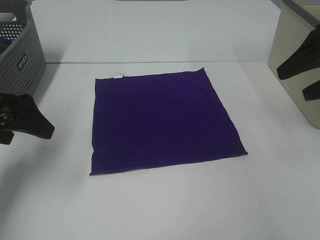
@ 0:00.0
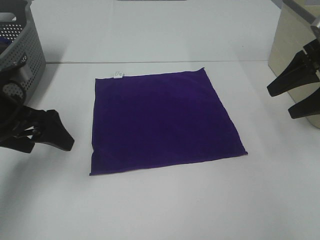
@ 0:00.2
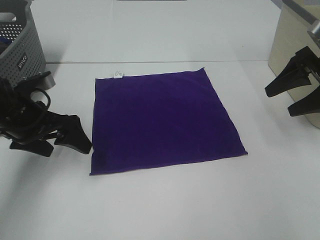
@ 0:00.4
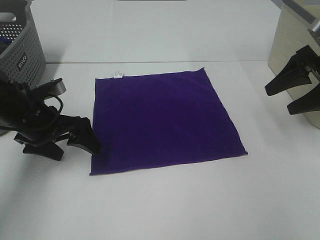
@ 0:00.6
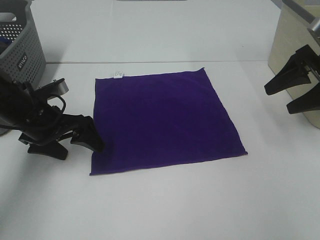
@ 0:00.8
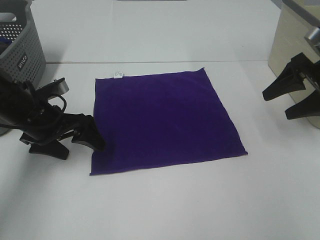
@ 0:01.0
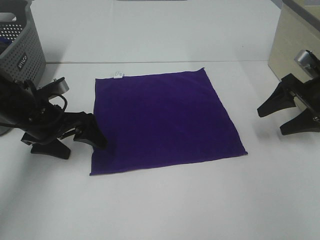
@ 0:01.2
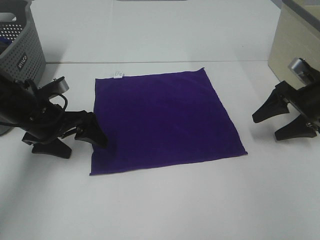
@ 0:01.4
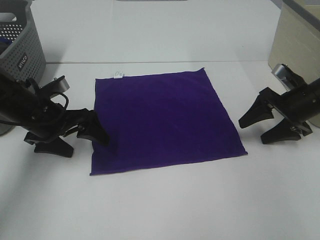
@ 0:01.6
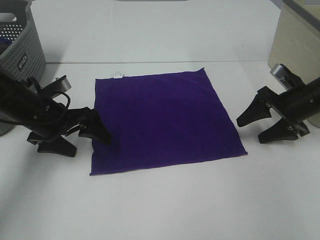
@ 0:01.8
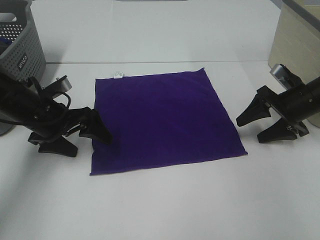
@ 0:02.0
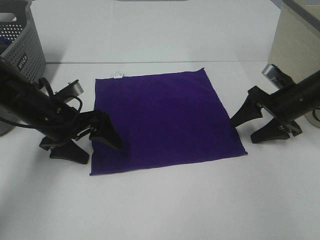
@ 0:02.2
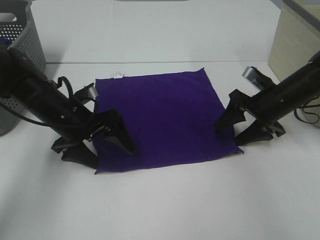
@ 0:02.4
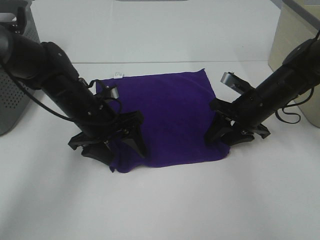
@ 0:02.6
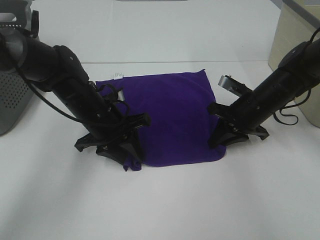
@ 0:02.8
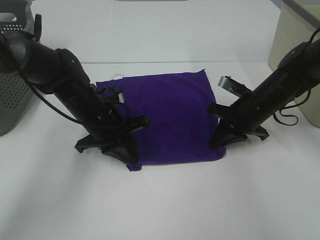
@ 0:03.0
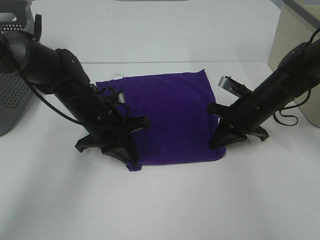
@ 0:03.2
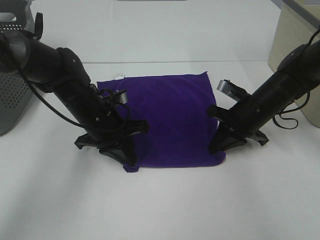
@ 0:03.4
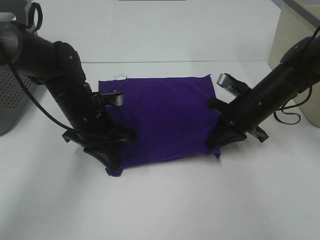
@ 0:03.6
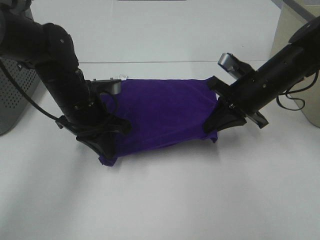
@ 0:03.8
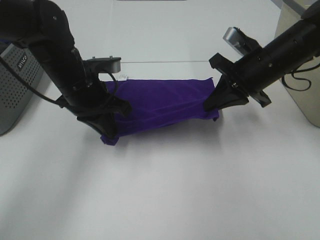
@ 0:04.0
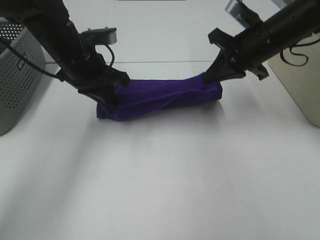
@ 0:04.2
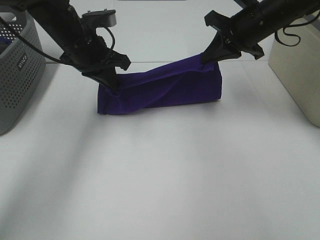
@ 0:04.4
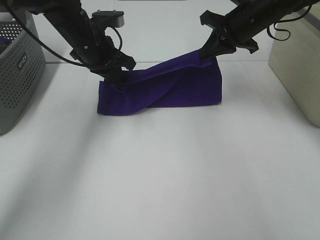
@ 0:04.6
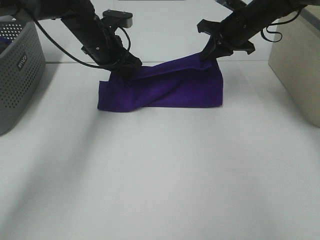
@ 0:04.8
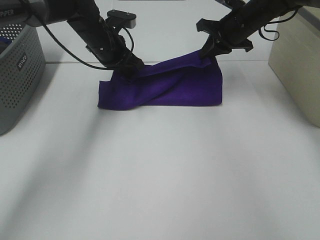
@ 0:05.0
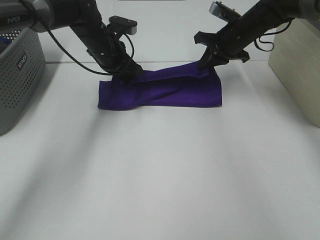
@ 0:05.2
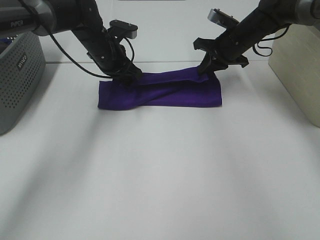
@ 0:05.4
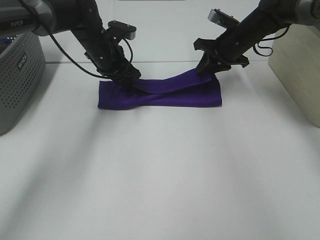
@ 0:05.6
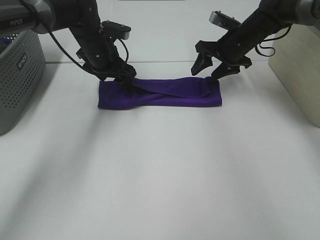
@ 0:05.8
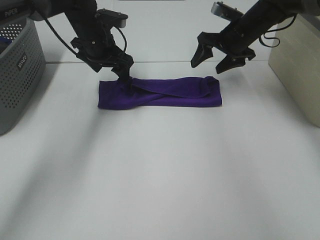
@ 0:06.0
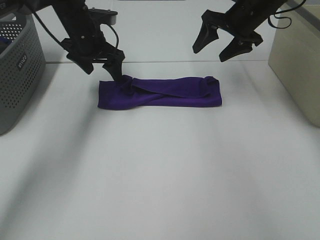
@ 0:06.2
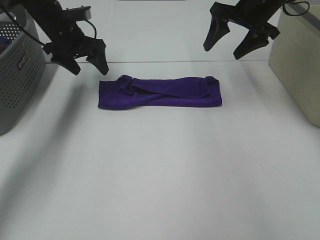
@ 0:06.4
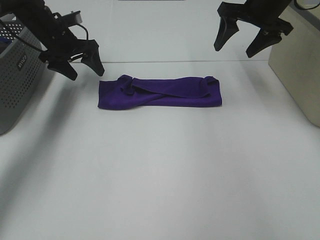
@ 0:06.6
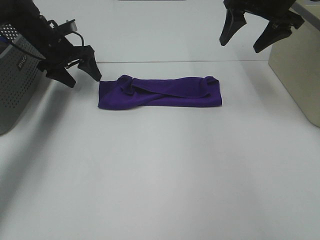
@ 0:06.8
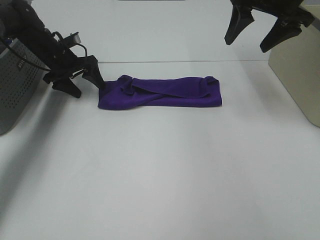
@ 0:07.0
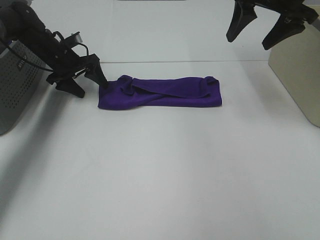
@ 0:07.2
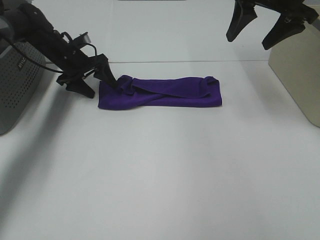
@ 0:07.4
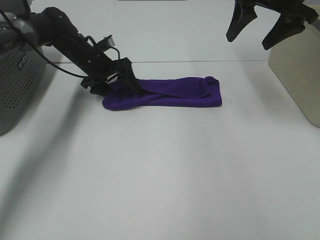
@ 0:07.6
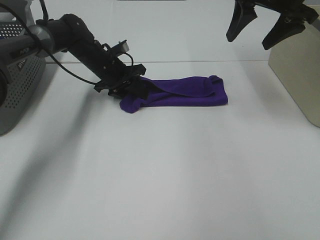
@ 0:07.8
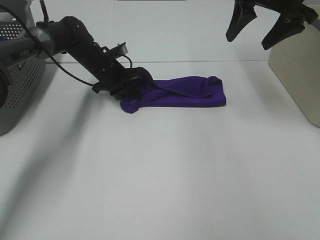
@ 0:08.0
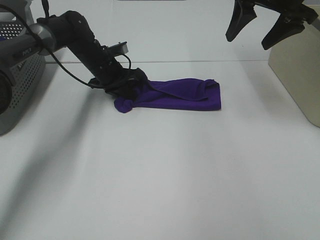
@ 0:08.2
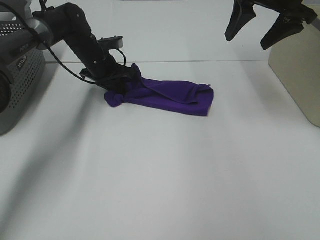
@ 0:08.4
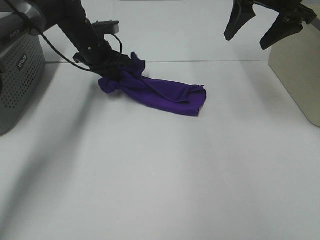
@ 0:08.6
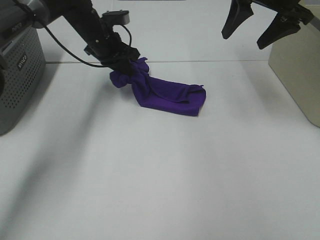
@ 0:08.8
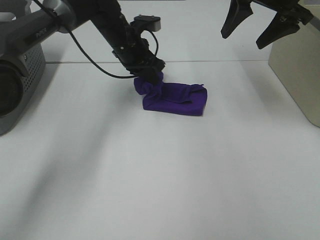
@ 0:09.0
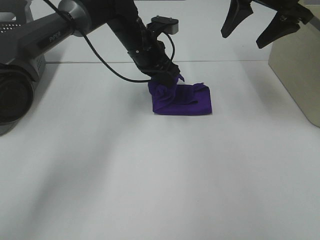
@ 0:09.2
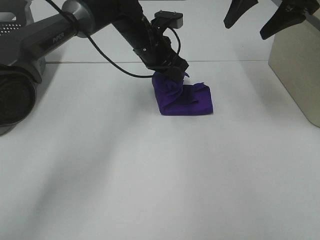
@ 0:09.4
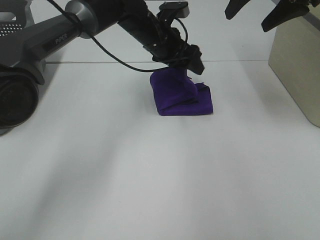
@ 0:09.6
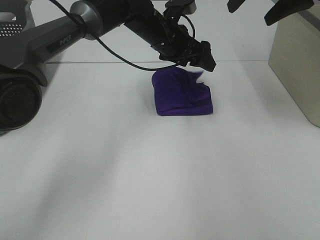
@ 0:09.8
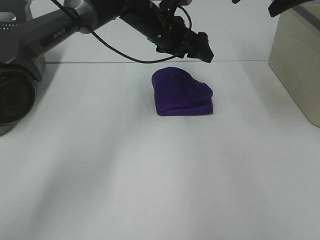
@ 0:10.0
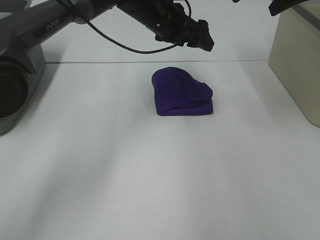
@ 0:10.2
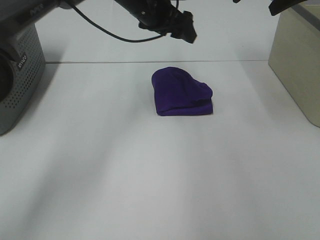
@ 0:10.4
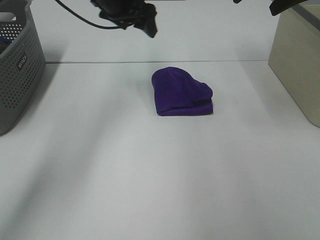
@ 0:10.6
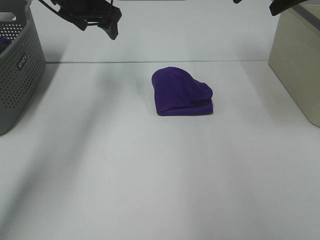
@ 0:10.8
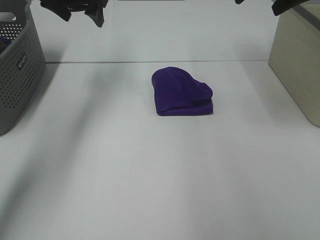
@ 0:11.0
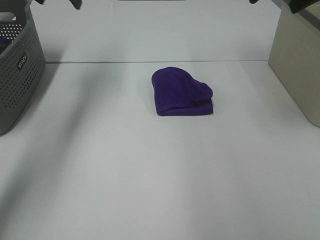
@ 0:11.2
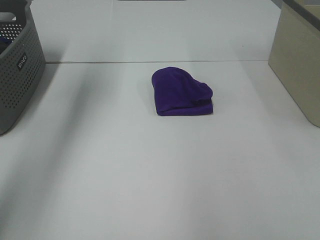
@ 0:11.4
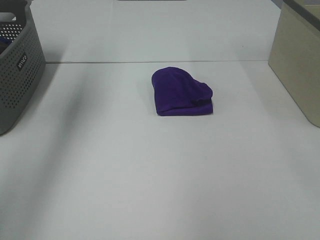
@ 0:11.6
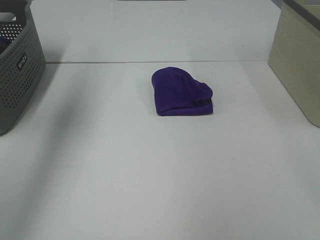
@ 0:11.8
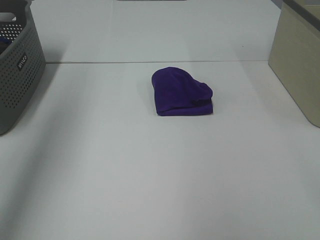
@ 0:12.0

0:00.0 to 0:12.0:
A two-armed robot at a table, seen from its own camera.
Task of the whole recording: Fold towels.
Step, 0:00.0 to 0:03.2: Left hand: grab the bottom left corner of purple towel.
Step, 0:00.0 to 0:03.2: Right hand: grab the bottom right corner of purple towel.
Step, 0:03.4 to 0:05.4: Left hand: fold the purple towel up.
Step, 0:03.4 to 0:05.4: Right hand: fold the purple towel up.
Step, 0:05.6 to 0:09.4: Left hand: fold the purple towel from left to right.
0:00.0 to 0:01.6: The right gripper heads downward, covering some 15 cm. Meanwhile the left gripper travels downward, forward and to the right by some 10 cm.
0:01.6 to 0:03.0: The left gripper is displaced to the right by some 10 cm, and closes its fingers; the right gripper shifts roughly 10 cm to the left, and closes up.
0:03.0 to 0:04.4: Both grippers move upward and forward, about 15 cm.
0:04.4 to 0:06.0: Both grippers move forward, approximately 10 cm. The left gripper opens up, while the right gripper opens its fingers.
0:06.0 to 0:07.6: The right gripper is displaced upward and backward by roughly 15 cm. The left gripper travels downward by about 10 cm, and travels to the left and back again, about 10 cm each way.
0:07.6 to 0:09.0: The left gripper heads to the right and upward, covering approximately 10 cm, and closes its fingers.
0:09.0 to 0:10.4: The two grippers go about 5 cm upward. The left gripper opens.
0:10.4 to 0:12.0: The left gripper is displaced backward, to the left and upward by roughly 40 cm, while the right gripper is displaced backward by roughly 30 cm.

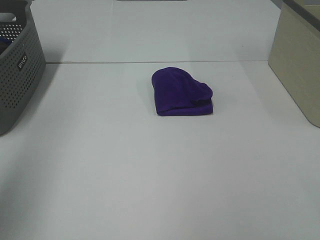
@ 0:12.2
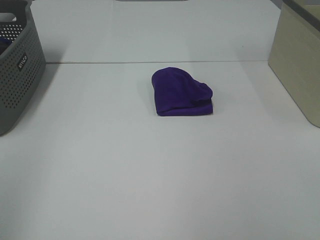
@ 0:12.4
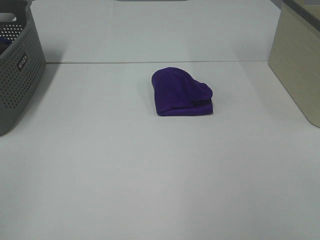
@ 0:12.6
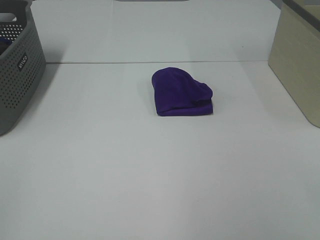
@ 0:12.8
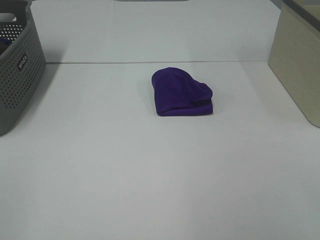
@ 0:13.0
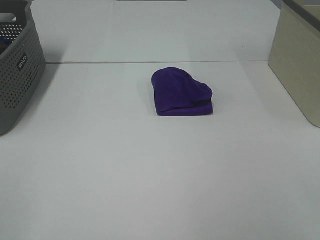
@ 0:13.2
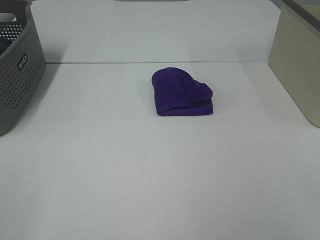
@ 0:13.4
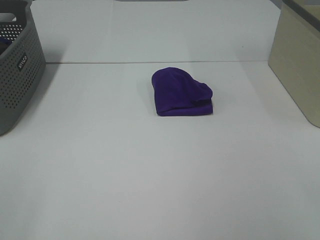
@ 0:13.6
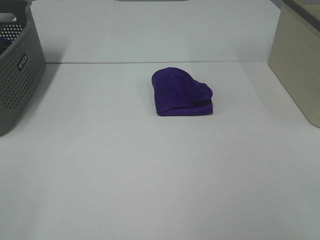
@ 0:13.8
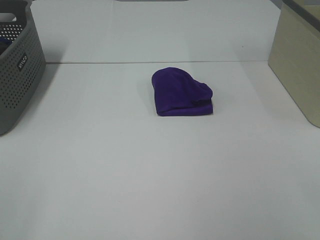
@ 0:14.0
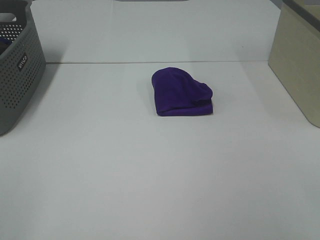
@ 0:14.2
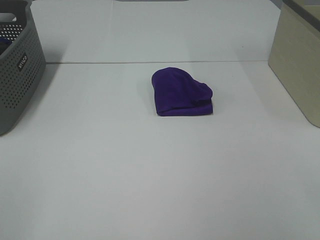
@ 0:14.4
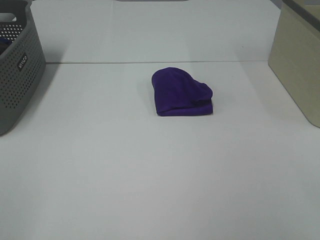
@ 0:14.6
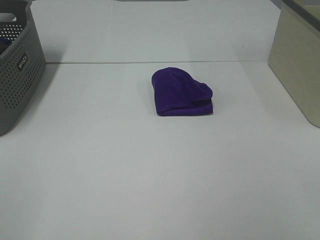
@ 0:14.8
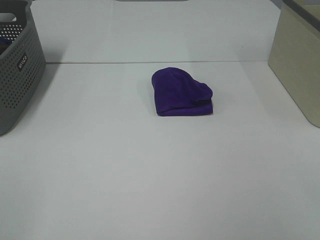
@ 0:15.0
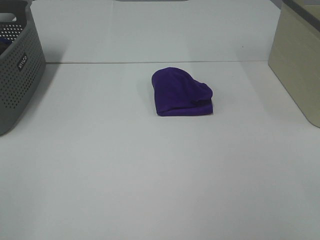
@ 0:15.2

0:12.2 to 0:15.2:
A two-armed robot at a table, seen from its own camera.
Task of the whole recording: Fold towels.
0:12.2 to 0:13.8: The left gripper heads backward and downward, covering approximately 15 cm.
